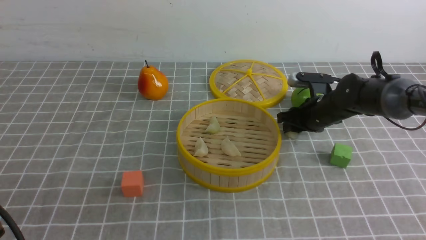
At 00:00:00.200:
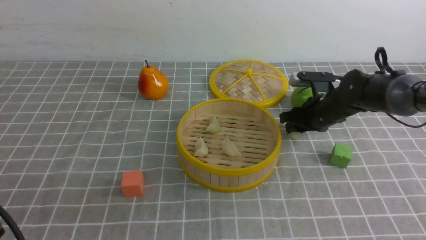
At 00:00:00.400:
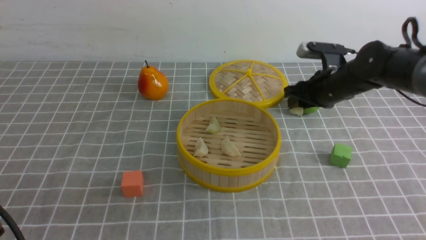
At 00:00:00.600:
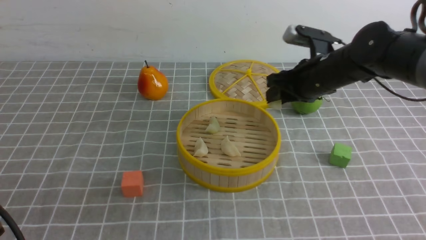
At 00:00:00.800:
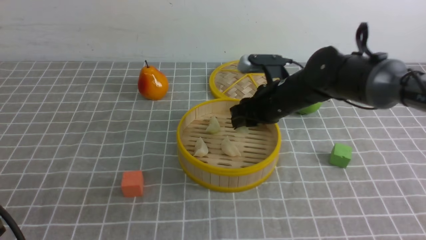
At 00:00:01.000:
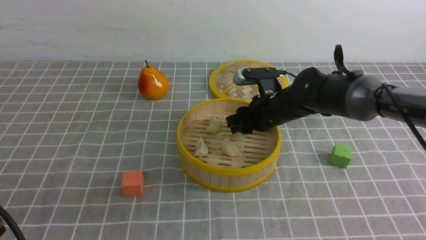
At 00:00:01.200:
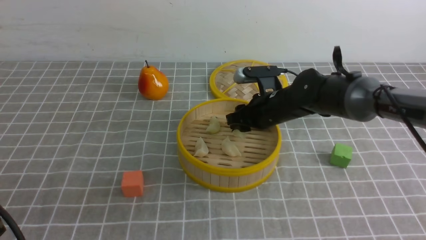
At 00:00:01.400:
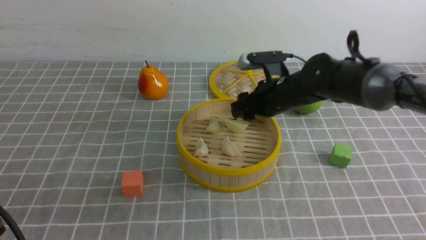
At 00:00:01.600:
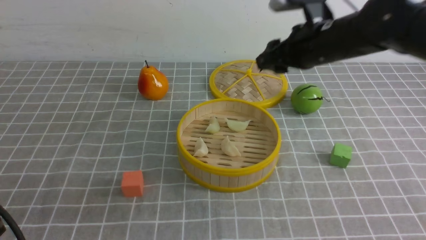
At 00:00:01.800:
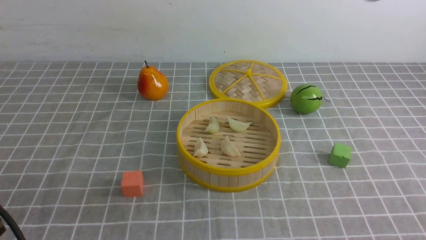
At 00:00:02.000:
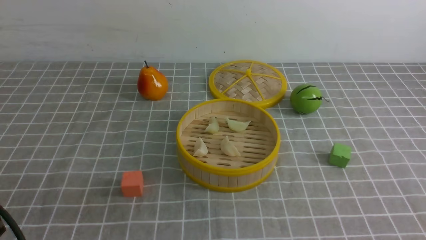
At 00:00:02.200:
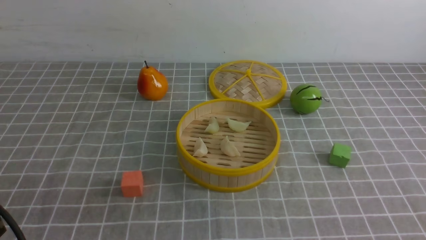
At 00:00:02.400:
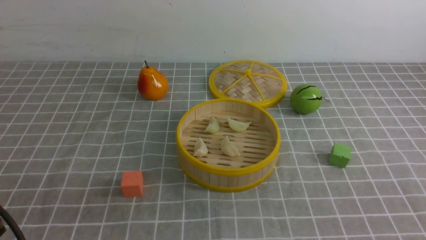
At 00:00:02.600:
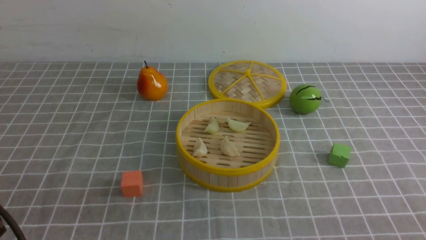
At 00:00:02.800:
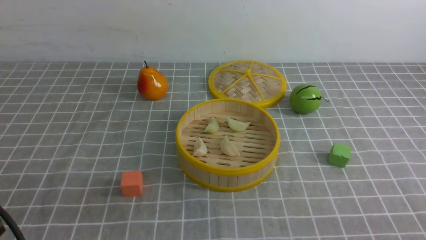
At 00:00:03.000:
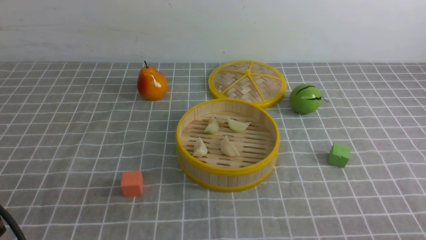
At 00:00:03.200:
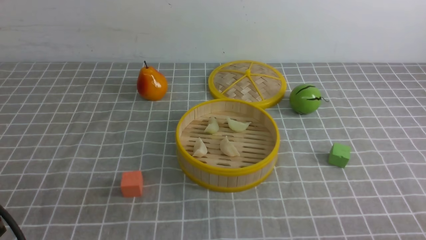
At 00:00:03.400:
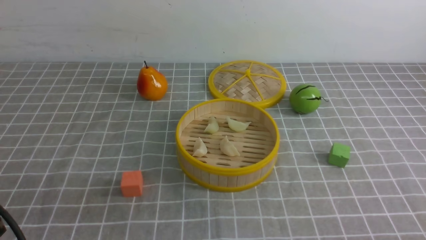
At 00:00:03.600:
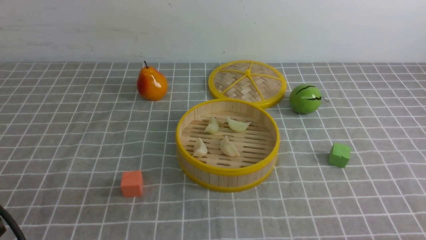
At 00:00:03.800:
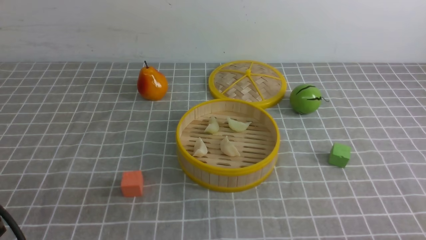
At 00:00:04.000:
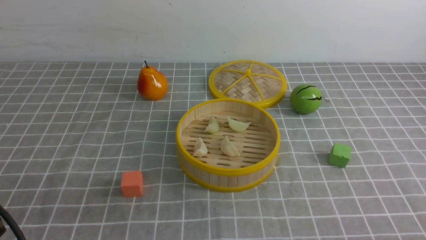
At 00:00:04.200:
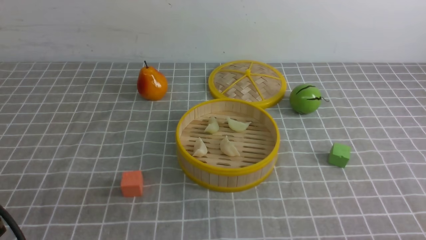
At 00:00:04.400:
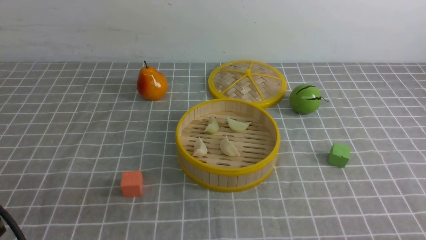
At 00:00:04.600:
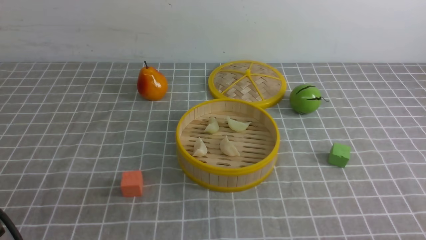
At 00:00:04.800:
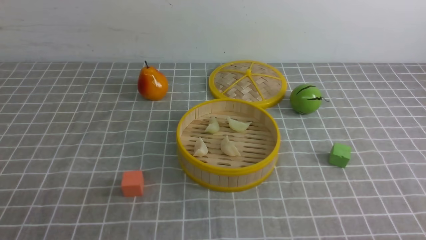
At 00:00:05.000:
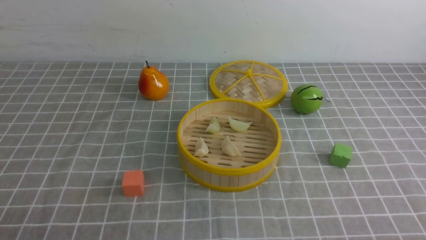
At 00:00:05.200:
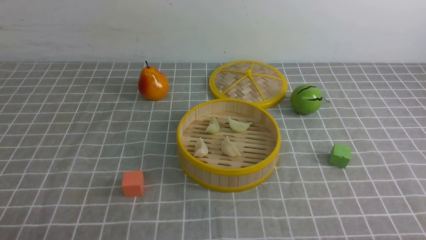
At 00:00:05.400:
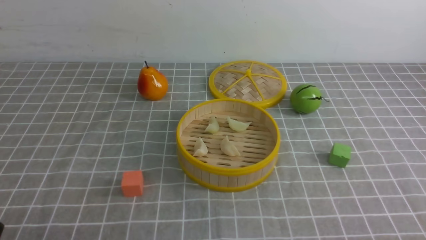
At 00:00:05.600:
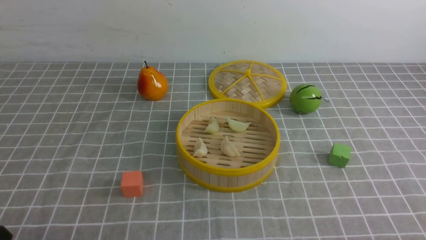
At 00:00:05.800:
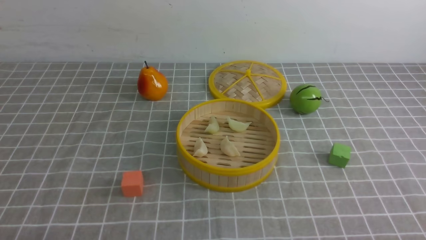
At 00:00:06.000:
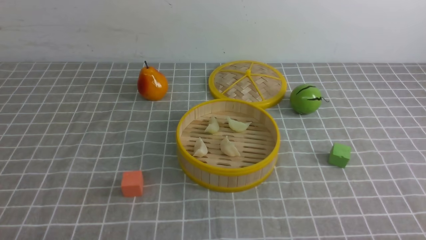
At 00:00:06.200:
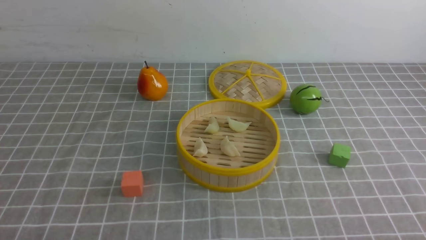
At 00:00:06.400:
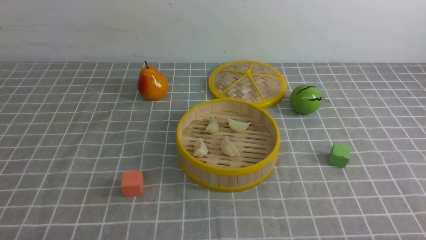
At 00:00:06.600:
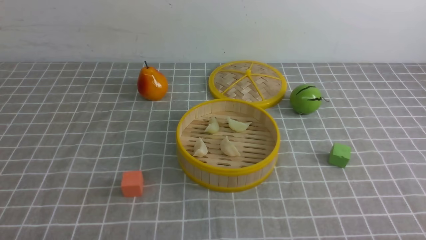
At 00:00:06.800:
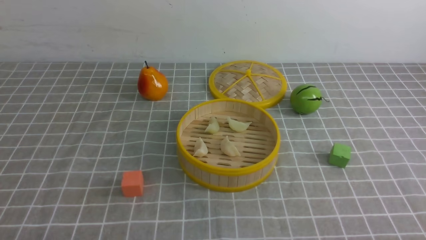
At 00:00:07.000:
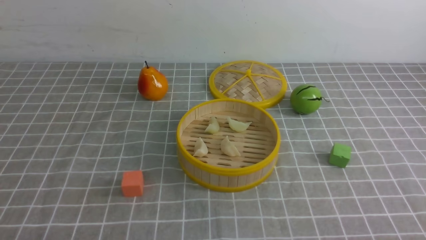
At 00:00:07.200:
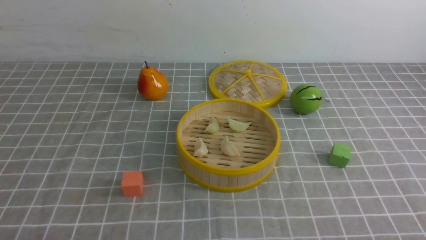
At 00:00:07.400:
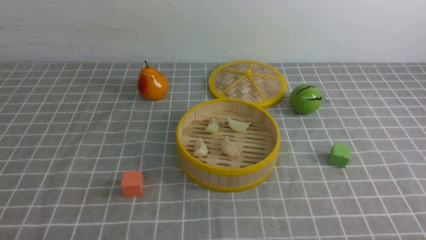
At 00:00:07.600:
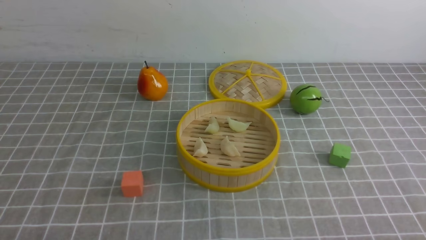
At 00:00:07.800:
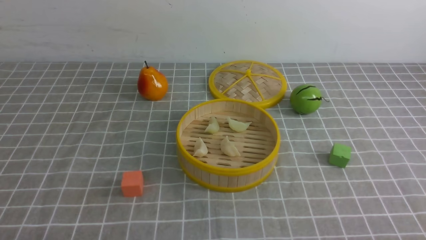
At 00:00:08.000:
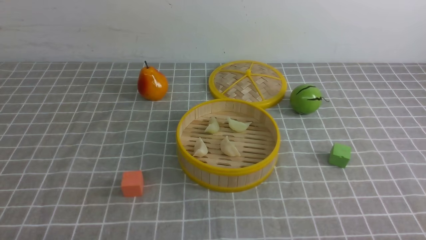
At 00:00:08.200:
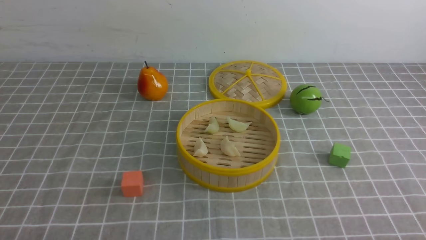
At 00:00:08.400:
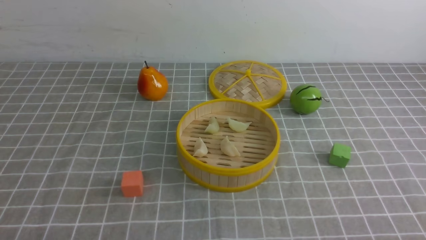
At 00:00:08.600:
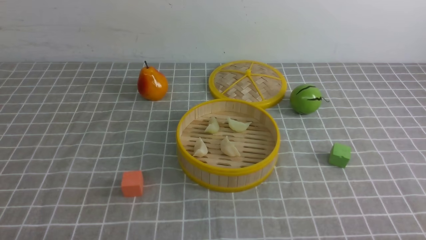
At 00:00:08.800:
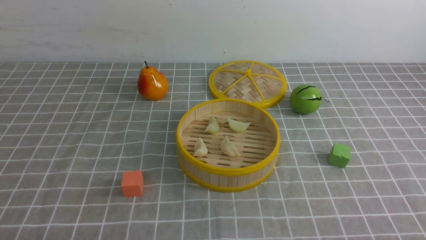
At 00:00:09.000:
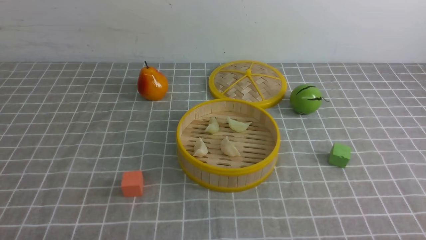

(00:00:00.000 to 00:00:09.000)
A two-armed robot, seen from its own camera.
Task of the whole recording: put the dumplings into the steamer on the table with the grey tablecloth.
Step, 00:00:00.400 - 00:00:01.400: use the right arm to put the dumpling into the steamer.
00:00:00.000 - 00:00:01.600: The right gripper moves up and down over approximately 20 cm, changing direction 2 times.
00:00:01.600 - 00:00:03.000: The right gripper shifts some 40 cm backward, downward and to the right, and closes.
00:00:07.600 - 00:00:09.000: The two grippers keep their place.
